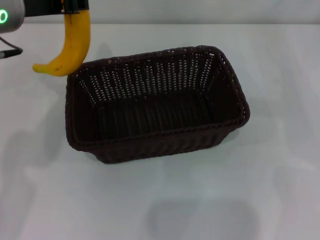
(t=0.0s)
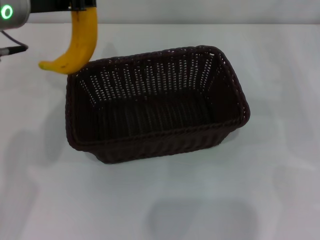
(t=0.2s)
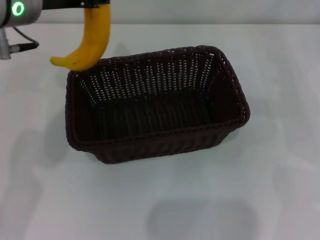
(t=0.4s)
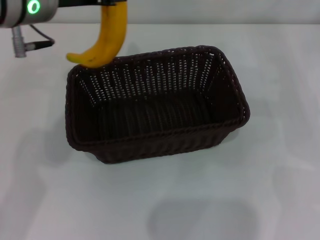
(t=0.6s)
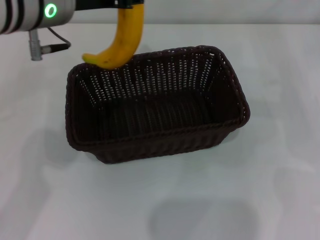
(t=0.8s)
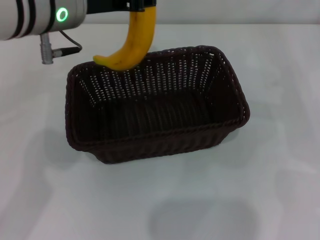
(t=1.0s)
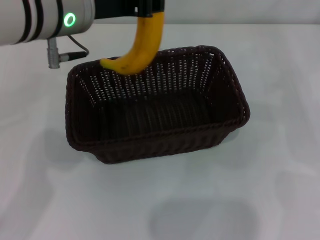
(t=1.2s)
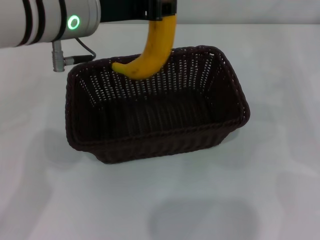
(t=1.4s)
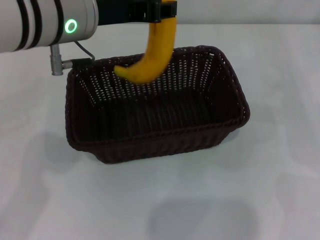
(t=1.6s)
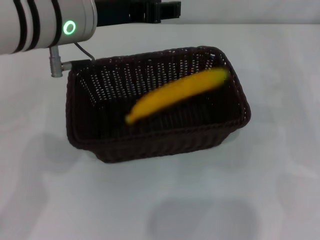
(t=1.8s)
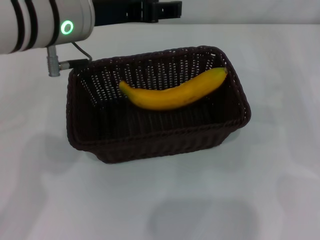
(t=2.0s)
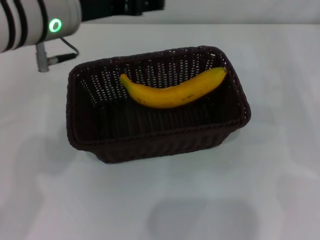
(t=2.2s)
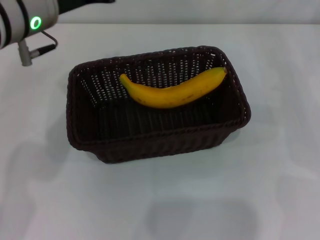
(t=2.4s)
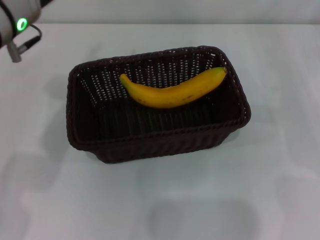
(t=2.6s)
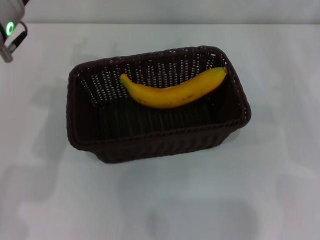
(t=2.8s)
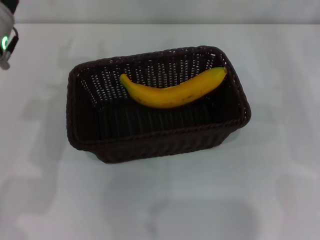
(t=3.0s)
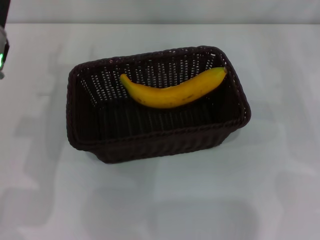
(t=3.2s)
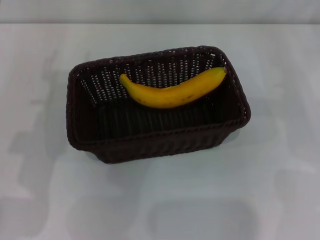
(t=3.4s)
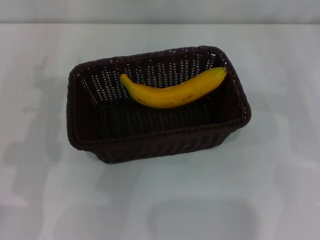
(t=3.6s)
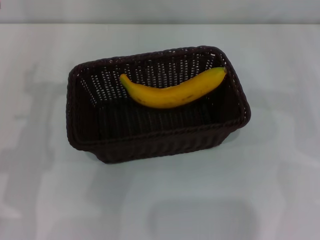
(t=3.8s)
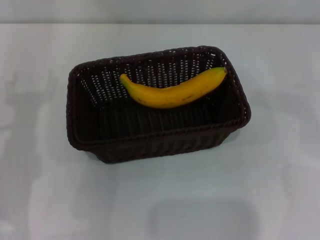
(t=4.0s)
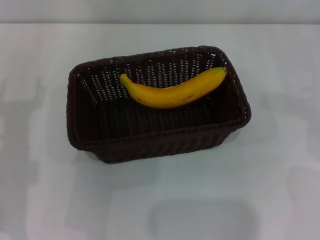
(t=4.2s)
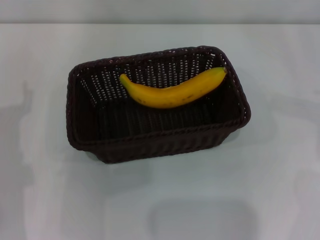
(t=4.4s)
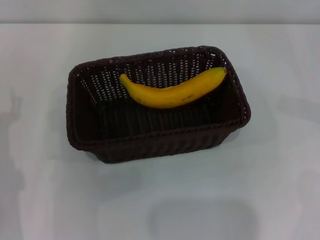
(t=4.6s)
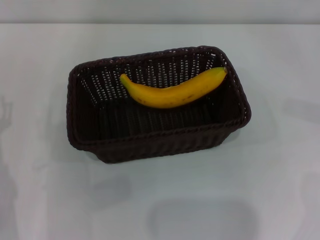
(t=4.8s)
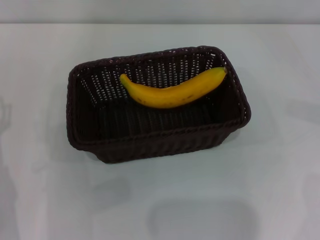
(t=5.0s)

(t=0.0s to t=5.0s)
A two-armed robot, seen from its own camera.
t=0.0s - t=1.6s: The left gripper goes approximately 5 cm to the right.
t=1.6s - t=3.4s: The left gripper moves downward and to the left, some 15 cm, and opens its fingers.
